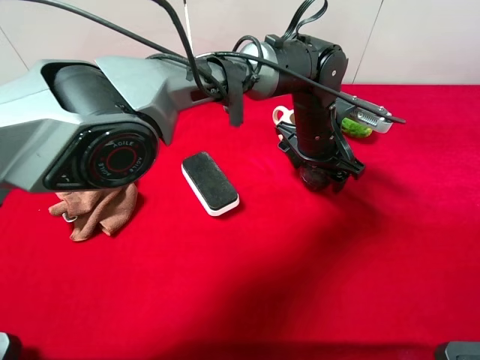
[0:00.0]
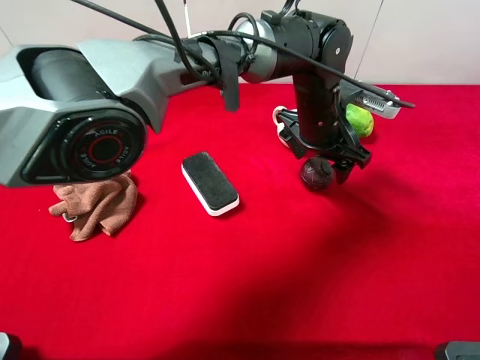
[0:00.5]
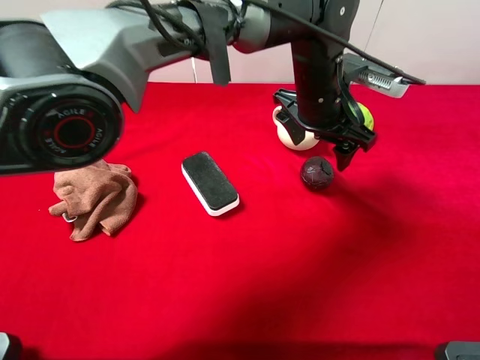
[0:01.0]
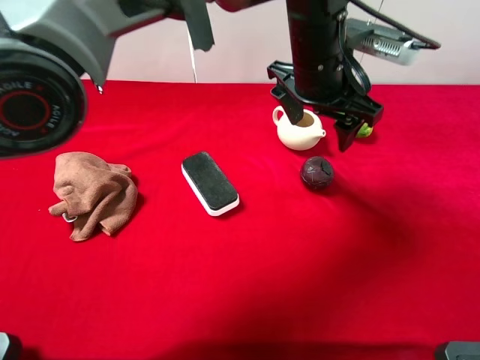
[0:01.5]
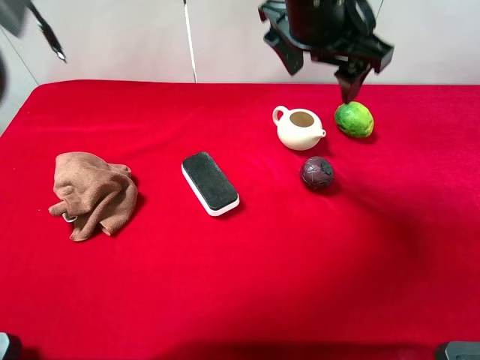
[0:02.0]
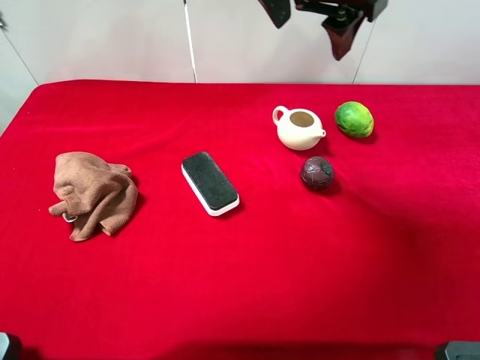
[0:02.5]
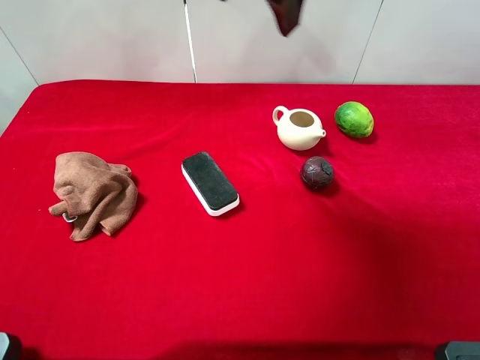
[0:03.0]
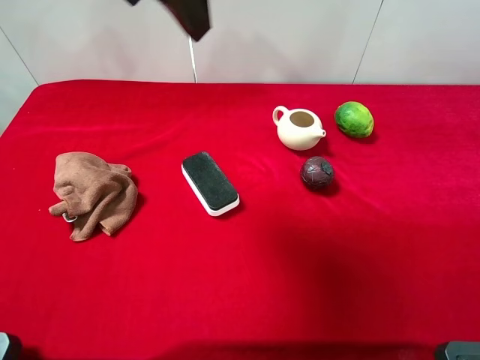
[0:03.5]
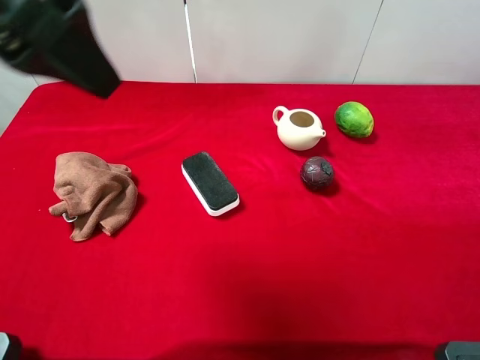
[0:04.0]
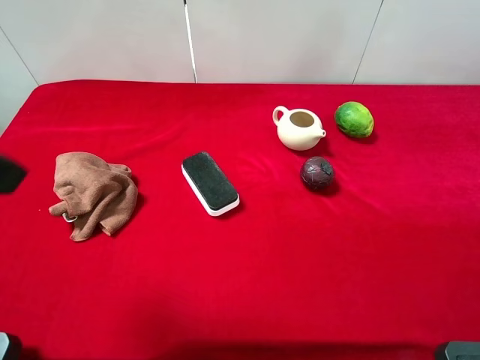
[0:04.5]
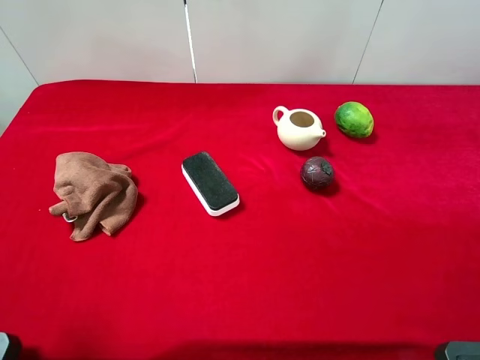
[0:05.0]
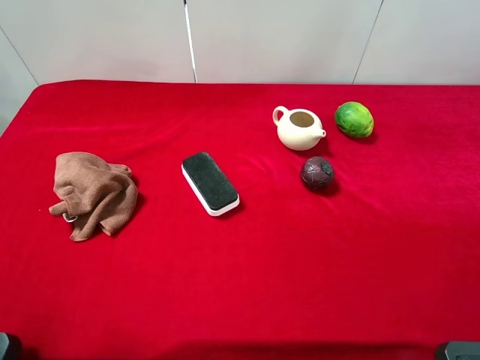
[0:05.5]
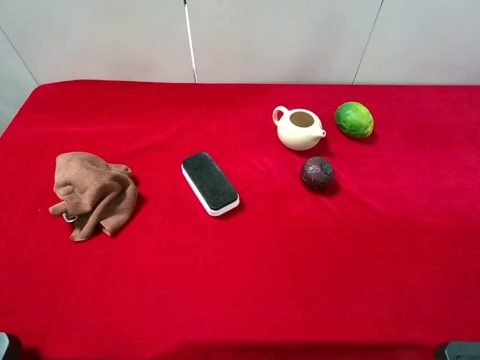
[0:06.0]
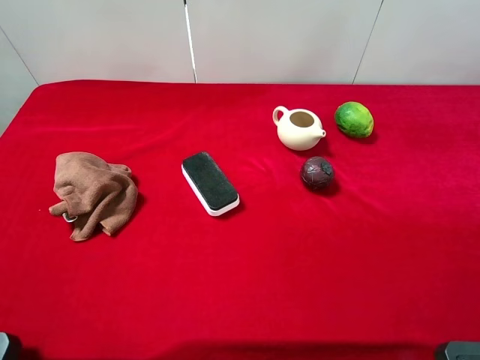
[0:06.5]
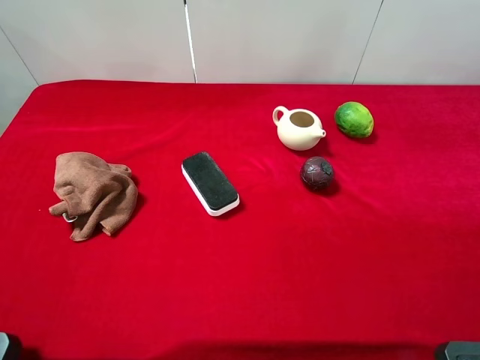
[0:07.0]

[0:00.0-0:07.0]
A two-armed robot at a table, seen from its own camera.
Task of the whole recording: the gripper move the object.
0:00.0 to 0:02.0: The left gripper is displaced upward by about 20 cm.
0:02.0 to 0:03.5: The left gripper is displaced to the left, upward and backward by approximately 20 cm.
0:03.5 to 0:05.0: The left gripper moves to the left, backward and downward, some 25 cm, and opens.
0:05.0 to 0:07.0: The left gripper travels backward by some 5 cm.

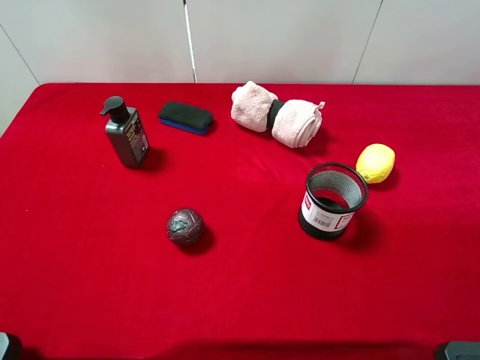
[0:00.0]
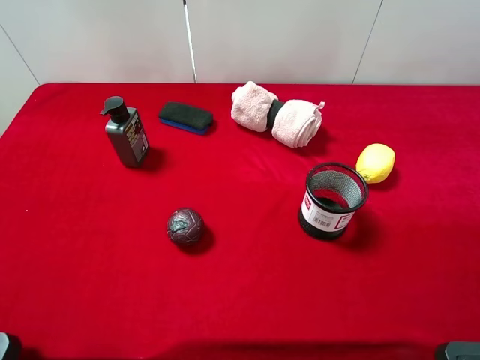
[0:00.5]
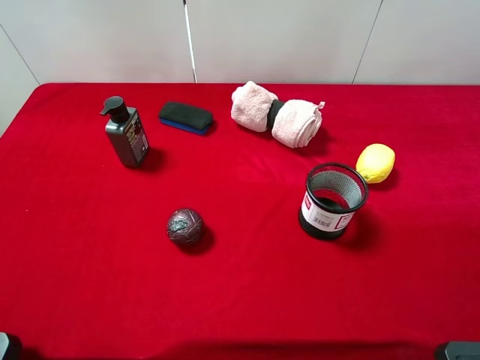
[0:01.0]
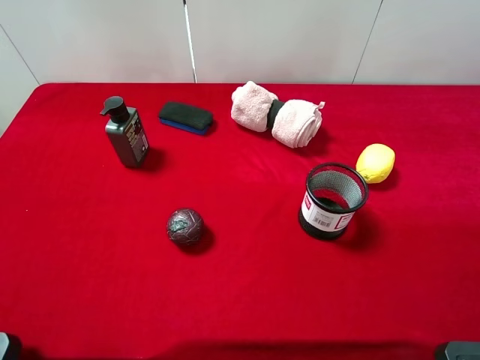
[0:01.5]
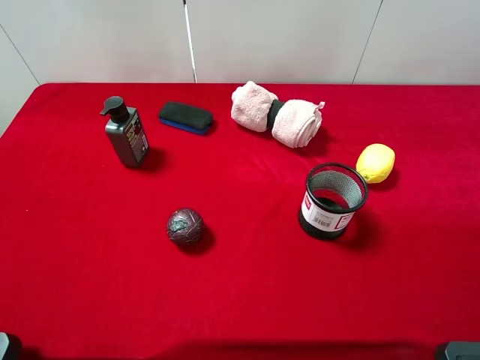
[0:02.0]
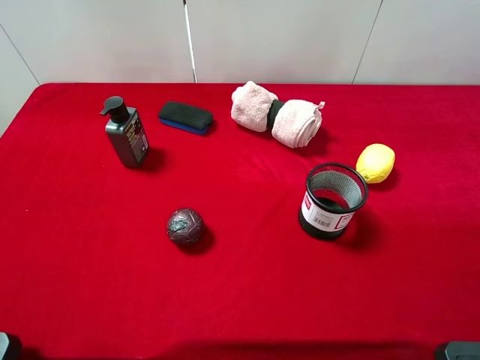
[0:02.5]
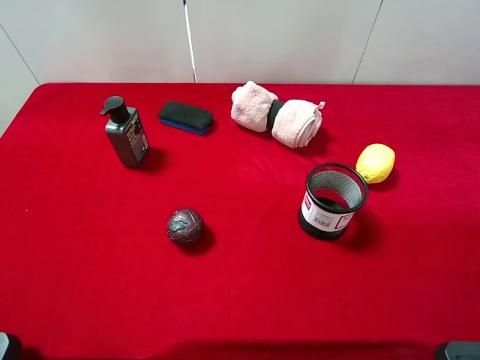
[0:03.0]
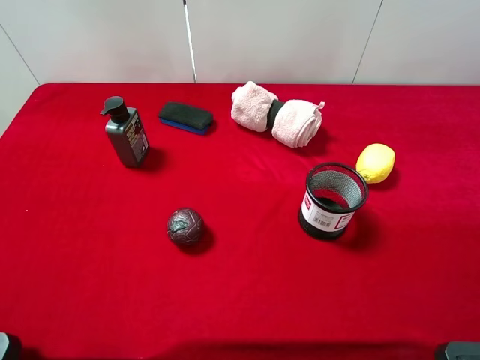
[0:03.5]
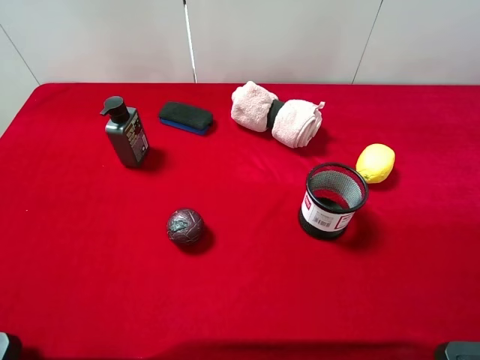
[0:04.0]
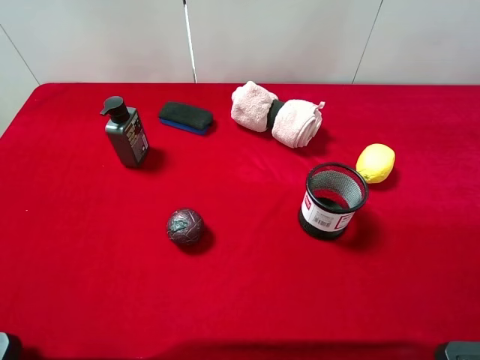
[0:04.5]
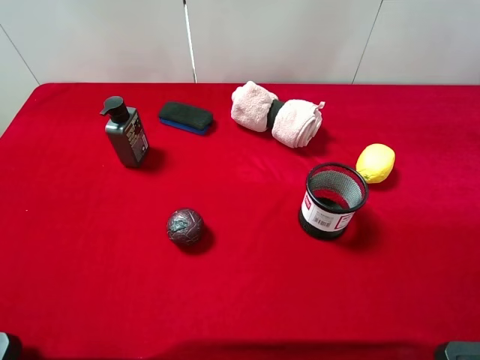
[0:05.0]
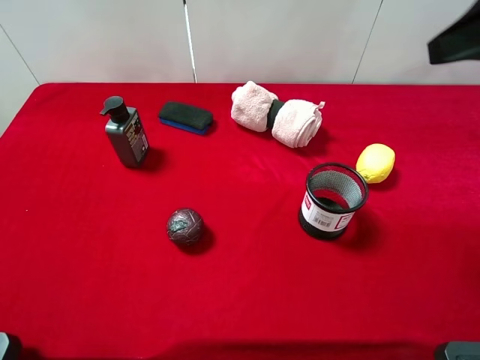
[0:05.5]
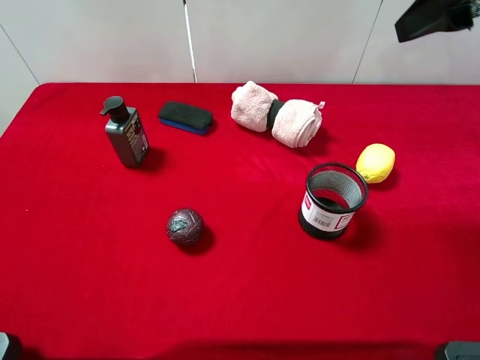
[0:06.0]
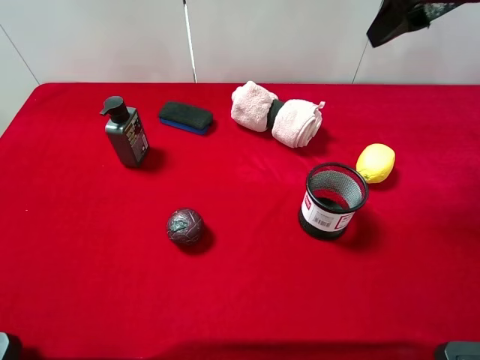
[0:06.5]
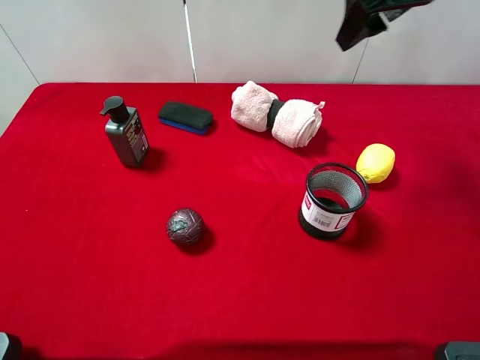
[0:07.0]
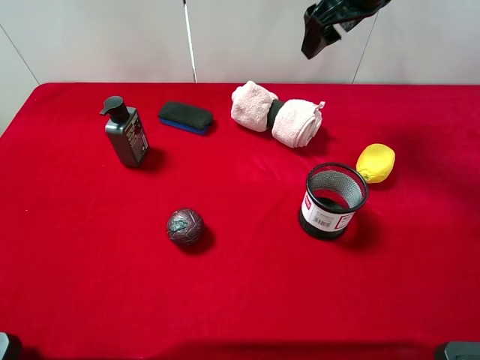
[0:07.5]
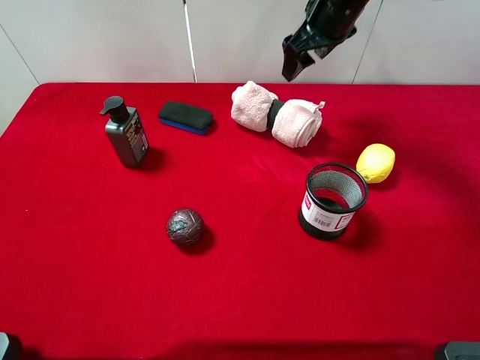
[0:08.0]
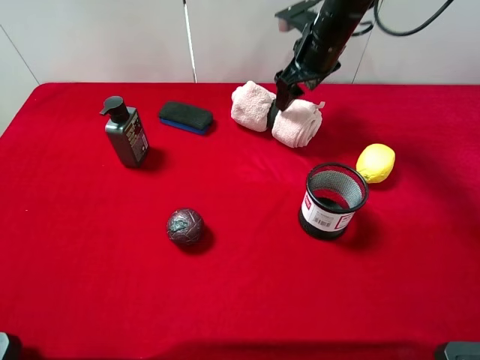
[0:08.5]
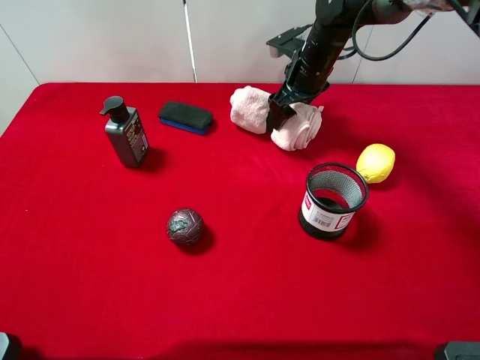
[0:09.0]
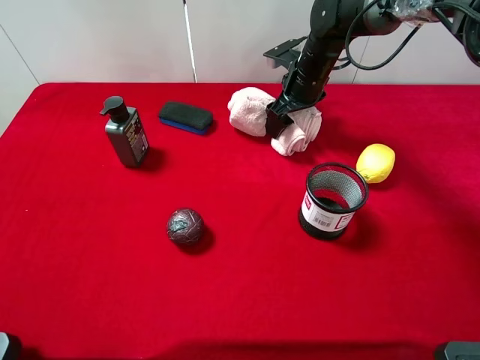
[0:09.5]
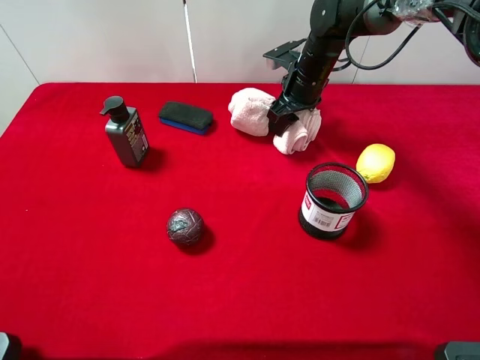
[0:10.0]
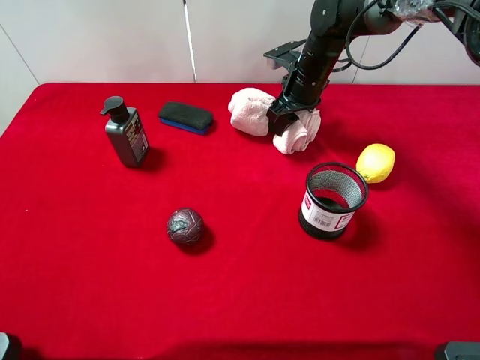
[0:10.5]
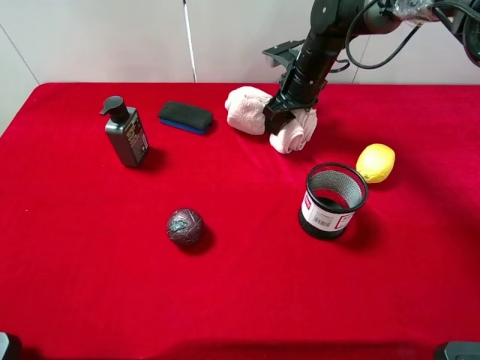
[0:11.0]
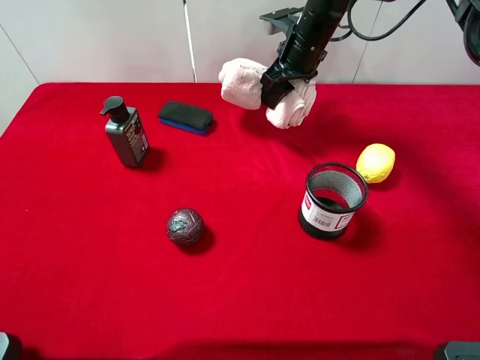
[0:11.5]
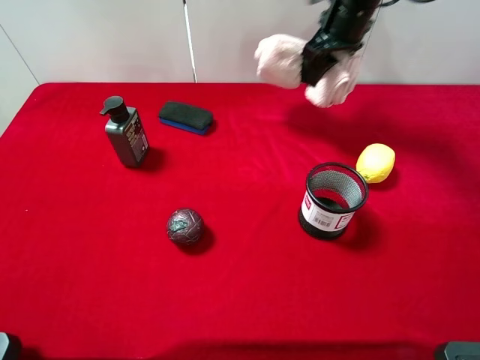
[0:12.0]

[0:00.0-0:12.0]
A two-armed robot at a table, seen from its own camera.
Task of the whole recording: the gripper move the object.
Step, 0:00.0 to 0:10.0: Grasp the pink towel with the right gripper.
0:00.0 to 0:04.0: Neither gripper changes place.
0:04.0 to 0:06.0: The right gripper goes roughly 25 cm forward.
0:06.0 to 0:08.0: The right gripper shifts about 25 cm forward, downward and to the left.
0:08.0 to 0:10.0: The right gripper goes some 10 cm downward, and closes.
0:10.0 to 0:12.0: The right gripper is displaced upward and to the right by approximately 10 cm.

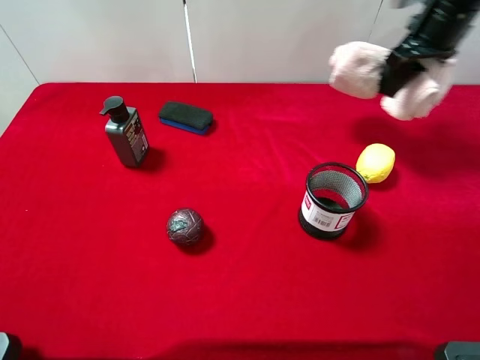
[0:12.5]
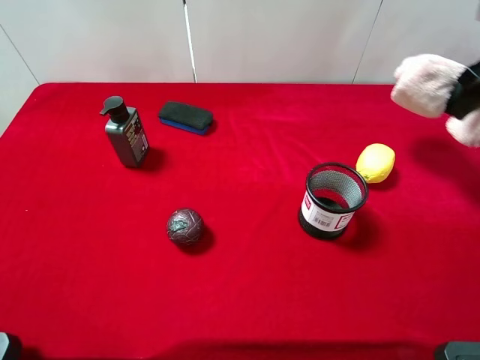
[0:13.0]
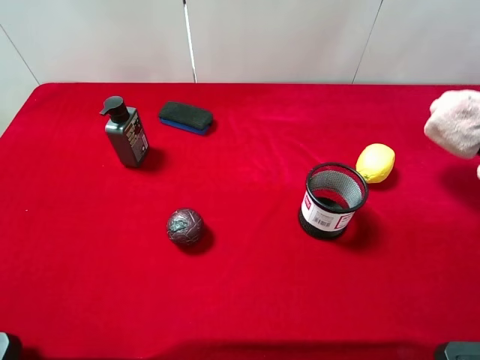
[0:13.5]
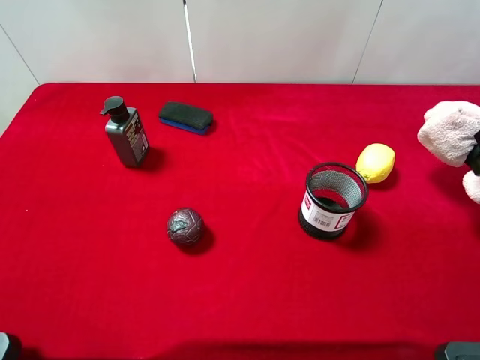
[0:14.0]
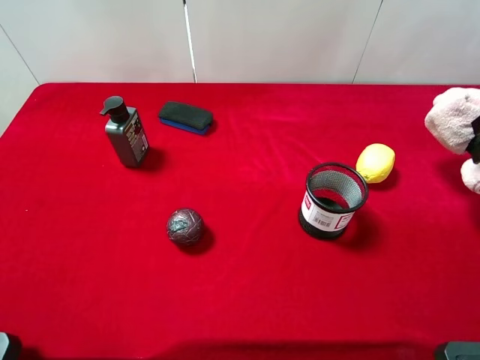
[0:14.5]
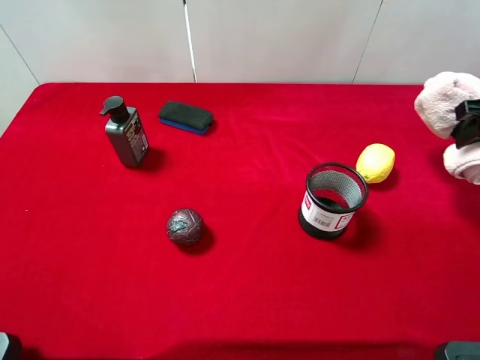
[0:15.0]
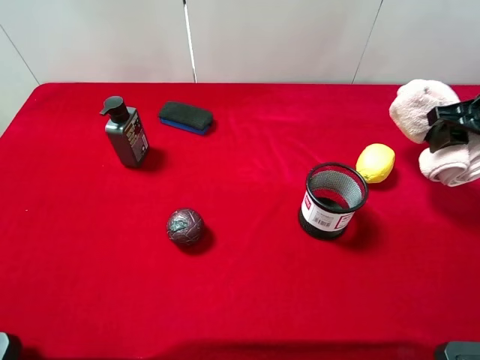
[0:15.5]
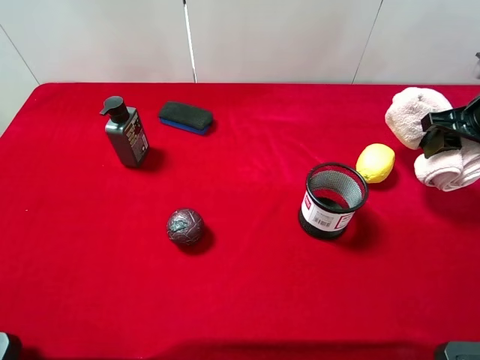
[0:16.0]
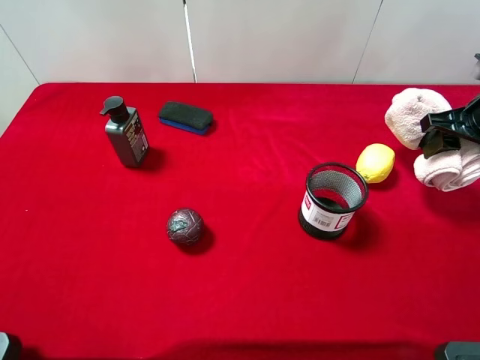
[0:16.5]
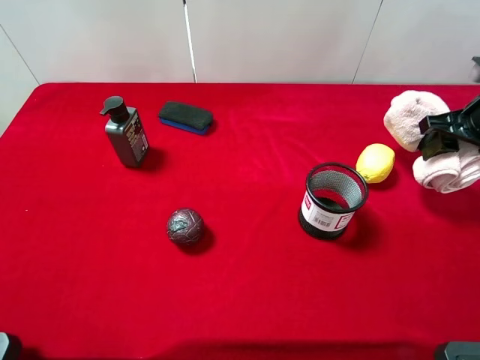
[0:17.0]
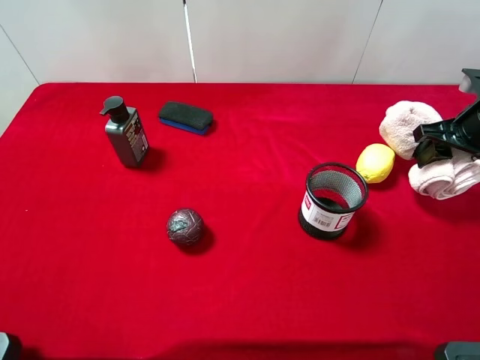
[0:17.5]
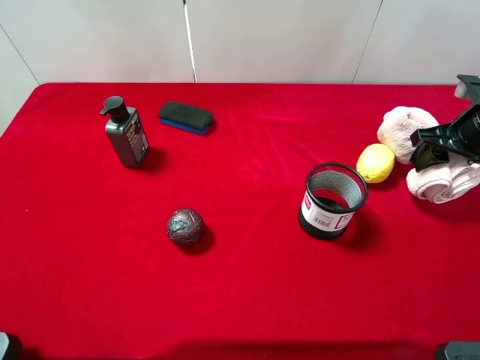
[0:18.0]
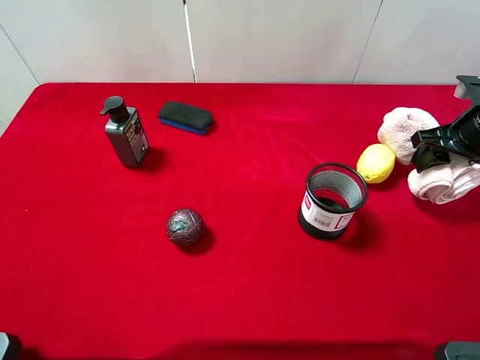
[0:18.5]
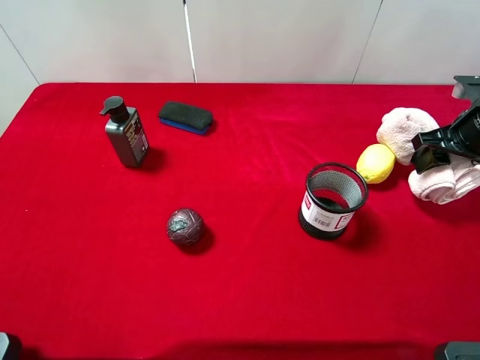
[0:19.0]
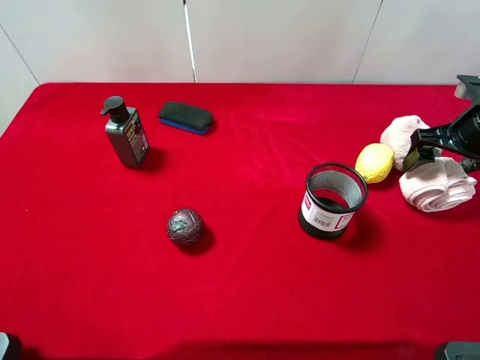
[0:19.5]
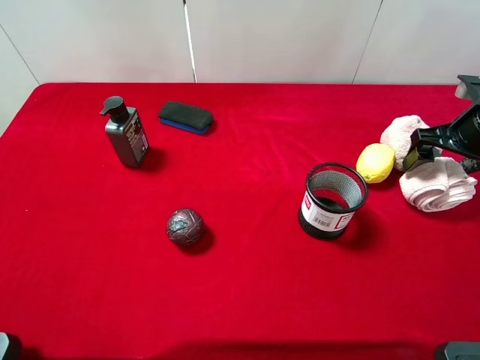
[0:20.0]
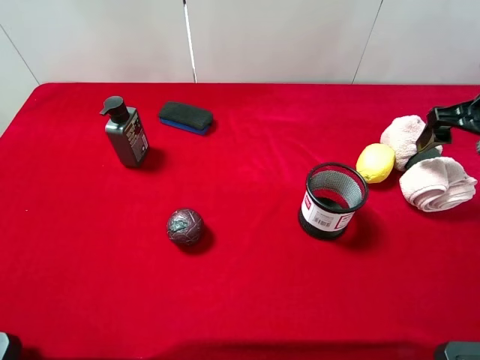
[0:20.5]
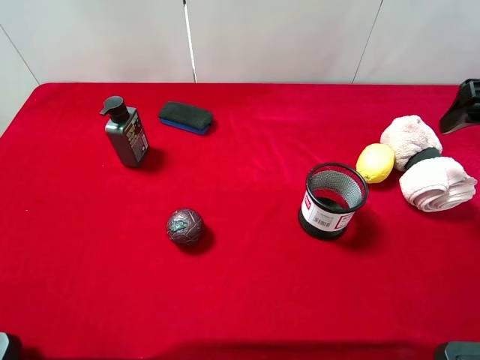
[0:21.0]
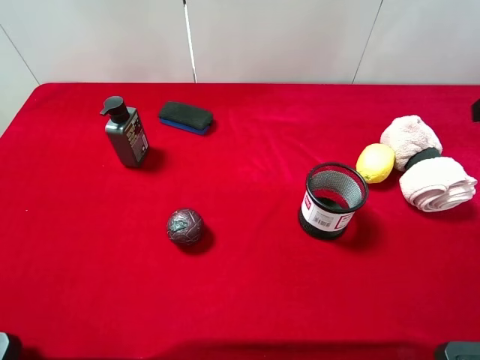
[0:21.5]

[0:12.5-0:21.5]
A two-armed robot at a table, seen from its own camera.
Task of the whole recording: the gripper move the object.
Step, 0:12.5 to 0:20.5: Place the pink towel on the table with the right gripper.
0:12.5 to 0:14.5: The right gripper goes some 15 cm backward and to the right.
0:14.5 to 0:17.0: The right gripper moves about 5 cm.
0:17.0 to 0:19.5: The right gripper opens.
0:19.5 to 0:21.5: The right gripper goes about 20 cm upward and backward.
